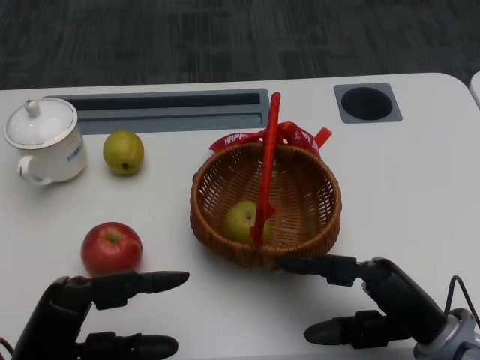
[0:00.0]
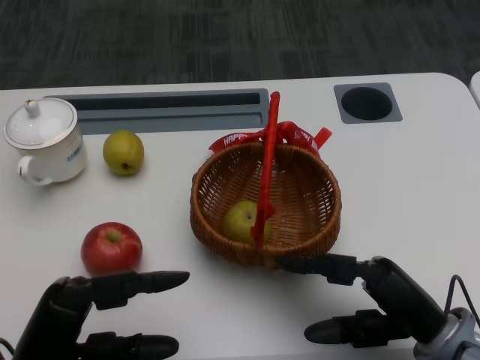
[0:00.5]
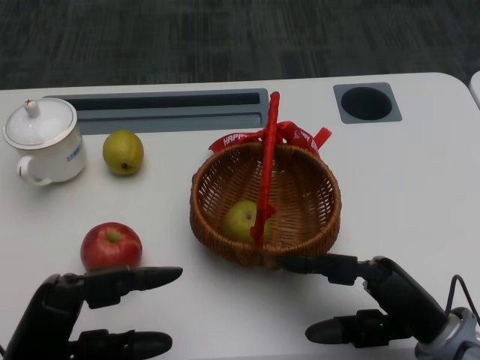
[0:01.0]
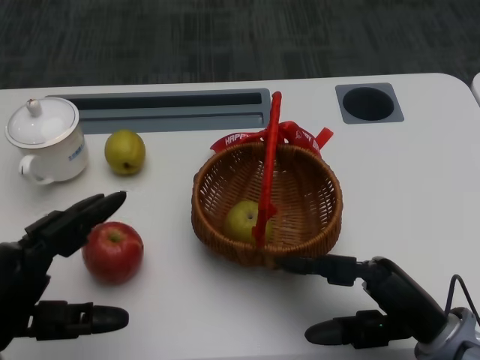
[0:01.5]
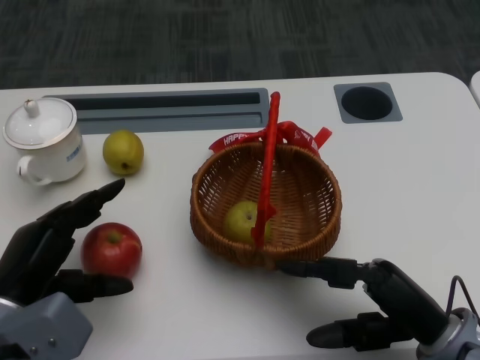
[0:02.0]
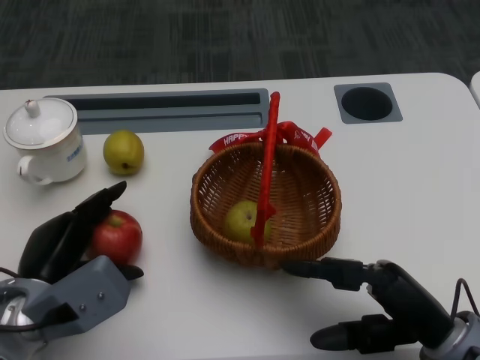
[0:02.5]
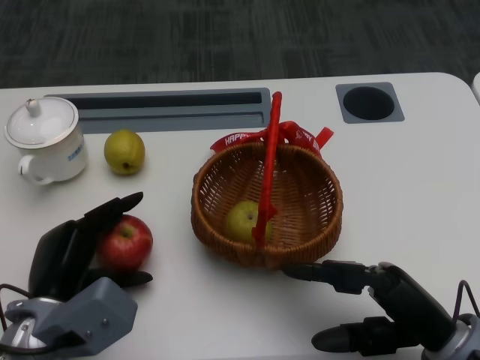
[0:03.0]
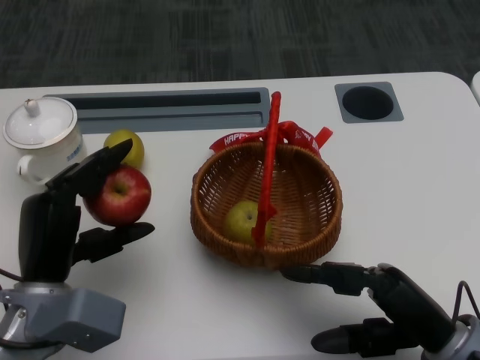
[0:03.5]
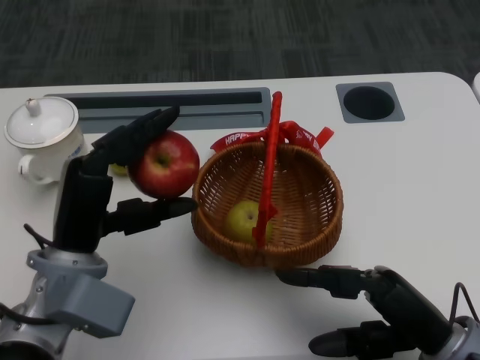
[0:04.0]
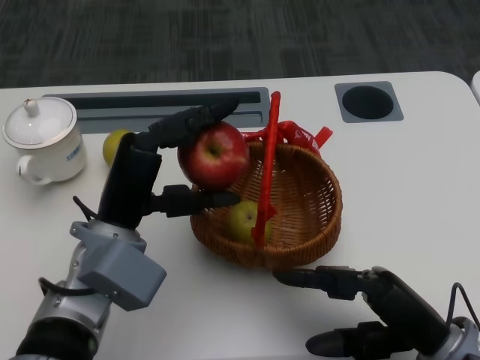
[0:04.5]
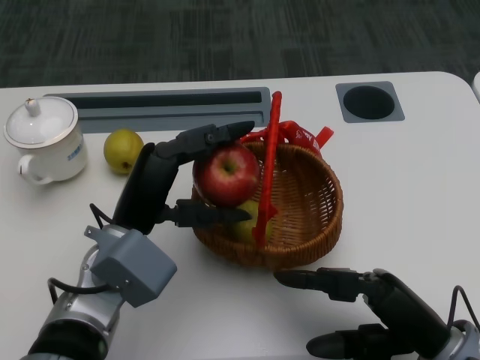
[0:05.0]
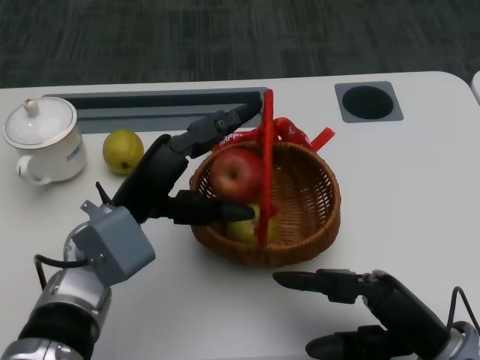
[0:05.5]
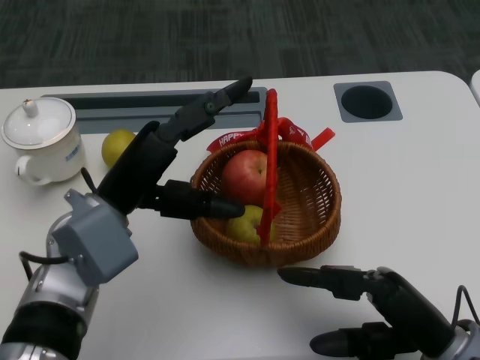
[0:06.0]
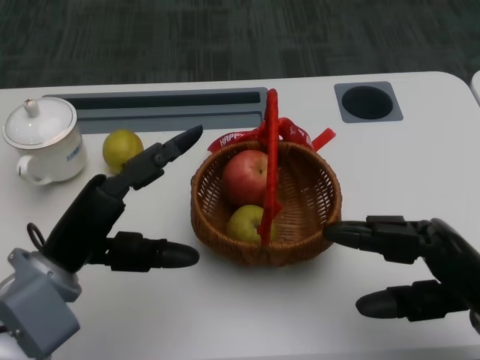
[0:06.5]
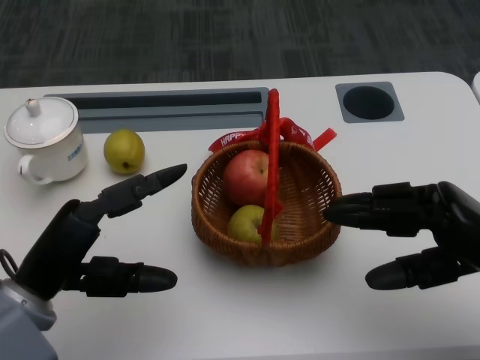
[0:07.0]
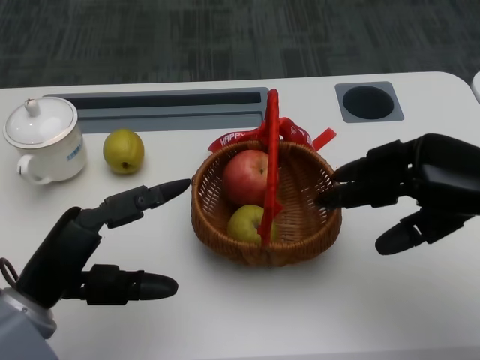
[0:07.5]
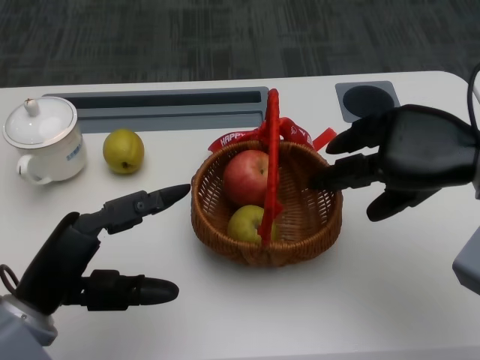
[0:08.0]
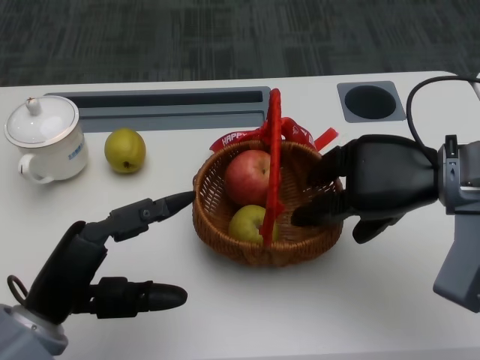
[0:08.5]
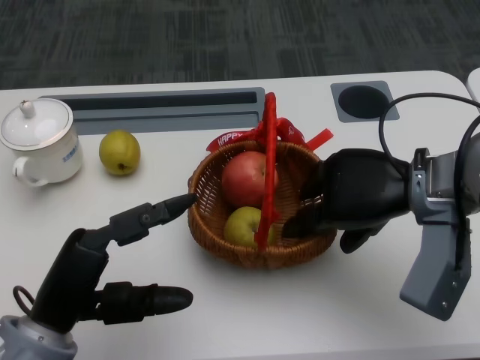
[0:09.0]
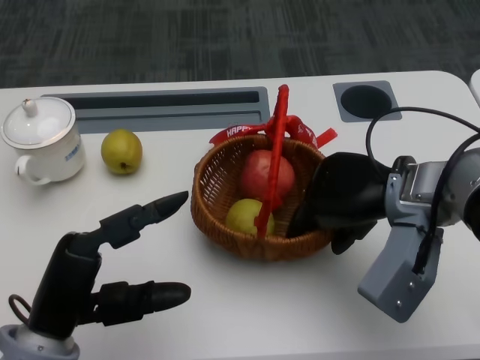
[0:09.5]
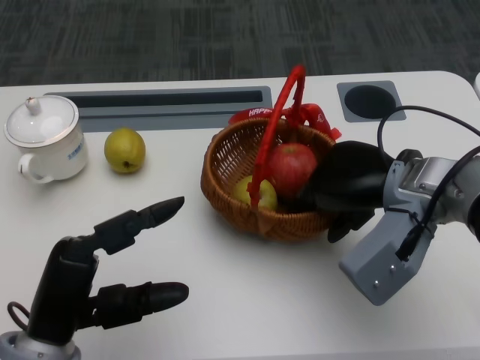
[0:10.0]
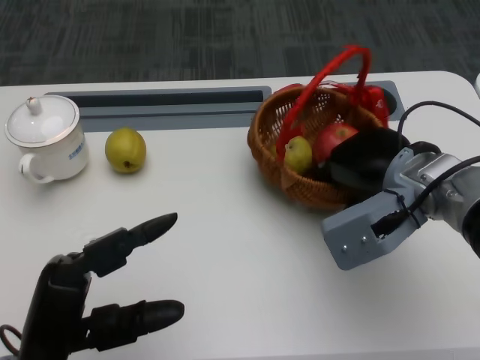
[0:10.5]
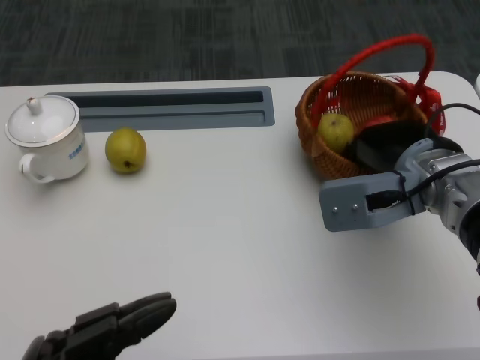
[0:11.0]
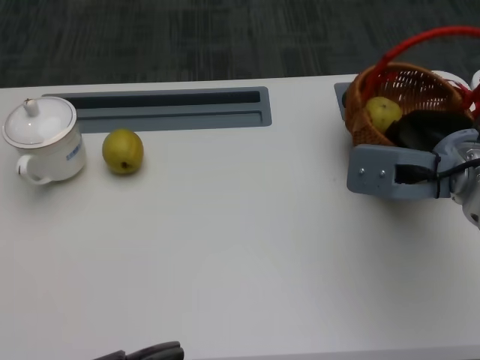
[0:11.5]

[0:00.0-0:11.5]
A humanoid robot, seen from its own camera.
Step, 0:01.0 to 0:02.0: Grasp the apple with the left gripper.
Step, 0:02.5 to 0:04.0: Place the apple into the basket with the left gripper.
Step, 0:04.5 to 0:07.5: Grasp the basket with the right gripper.
Step, 0:08.0 to 0:09.5: Move the basket to the front of the table with the right gripper.
0:02.0 to 0:04.0: The left hand moves to the right, roughly 5 cm.
0:04.0 to 0:06.0: The left hand shifts by roughly 5 cm.
0:06.0 to 0:07.5: The right hand is displaced upward, forward and to the right by approximately 15 cm. The left hand goes roughly 10 cm backward and to the left.
0:07.5 to 0:09.5: The right hand travels to the left by about 10 cm.
0:09.5 to 0:11.5: The left hand travels backward by some 15 cm.

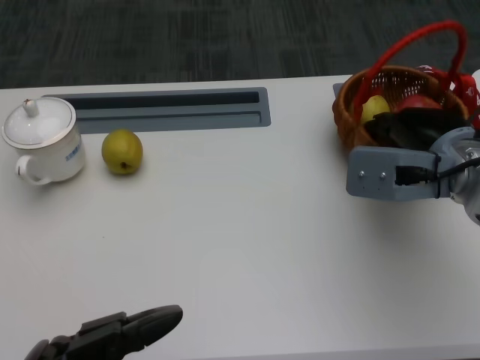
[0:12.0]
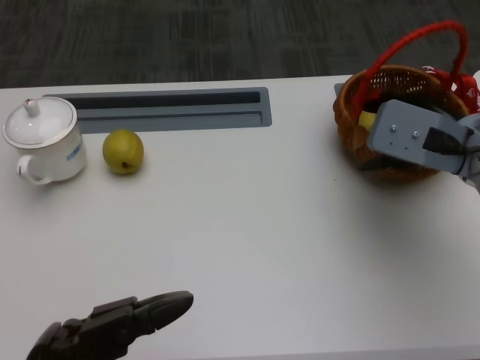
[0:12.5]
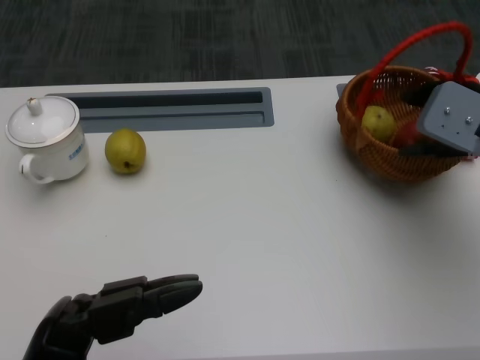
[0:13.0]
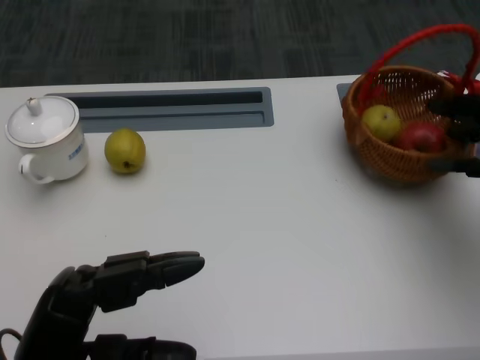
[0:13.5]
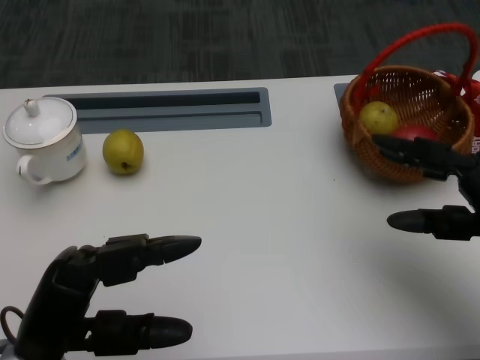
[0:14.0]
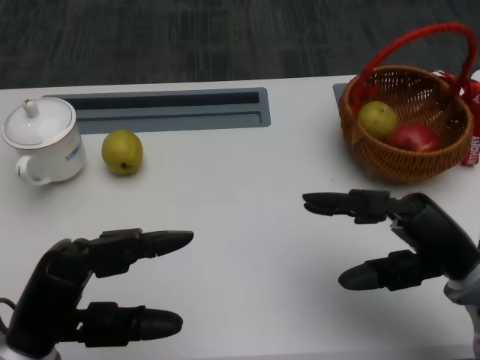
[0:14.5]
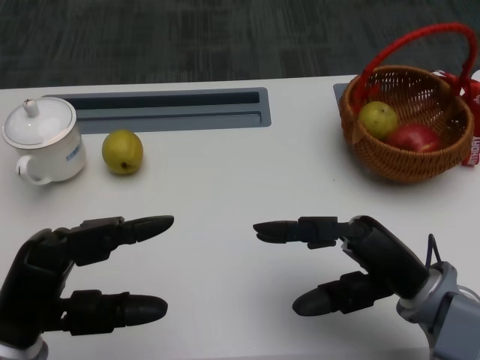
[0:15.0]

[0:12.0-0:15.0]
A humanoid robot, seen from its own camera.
0:12.0 to 0:13.5: The right hand moves to the right, some 10 cm. Meanwhile the left hand goes approximately 5 cm forward.
0:13.5 to 0:15.0: The right hand heads to the left, backward and downward, covering roughly 15 cm.
